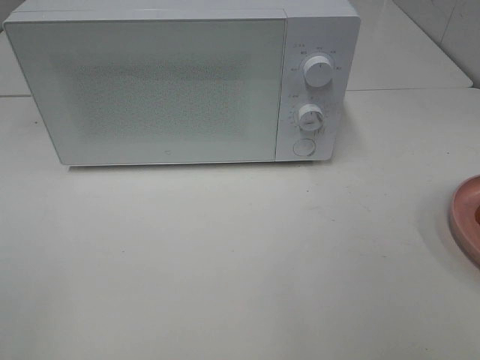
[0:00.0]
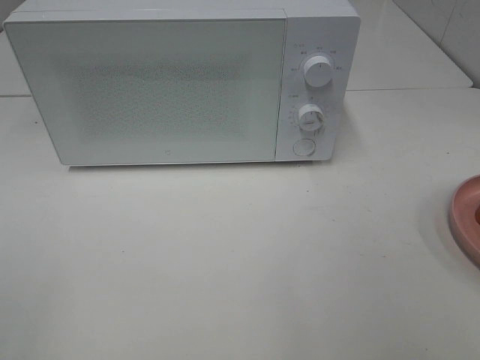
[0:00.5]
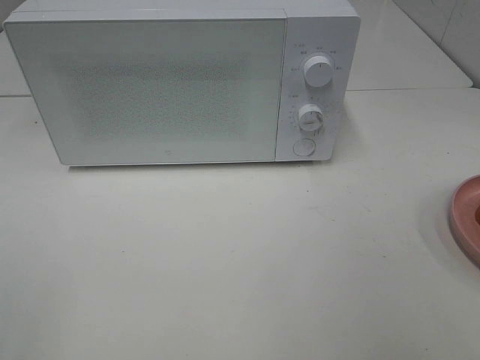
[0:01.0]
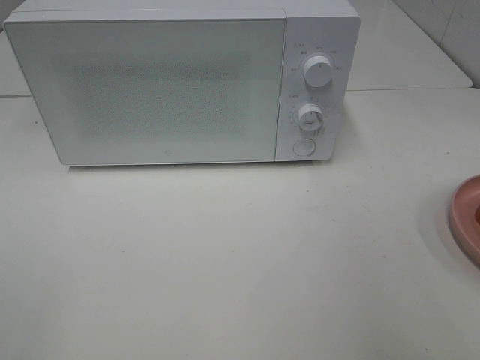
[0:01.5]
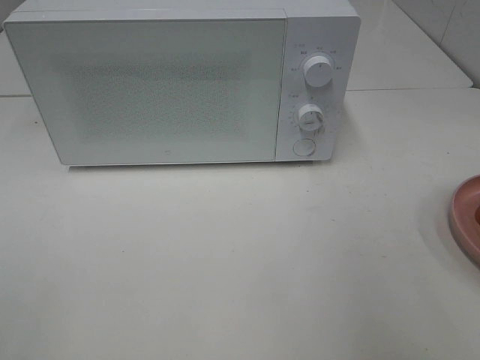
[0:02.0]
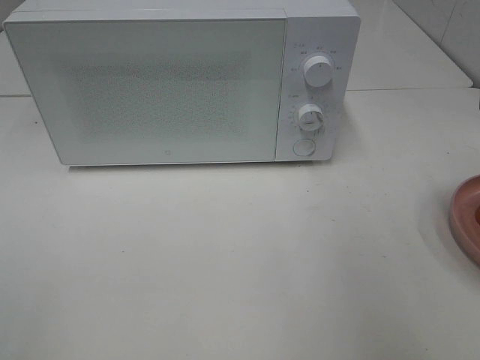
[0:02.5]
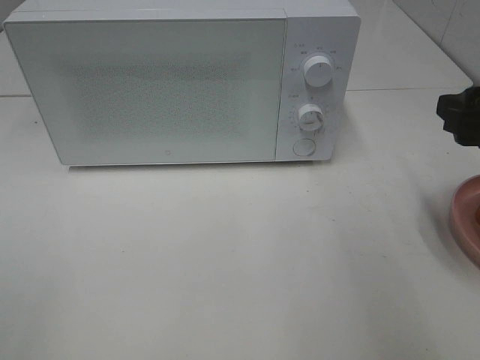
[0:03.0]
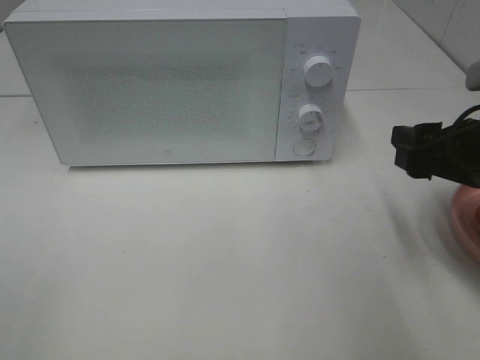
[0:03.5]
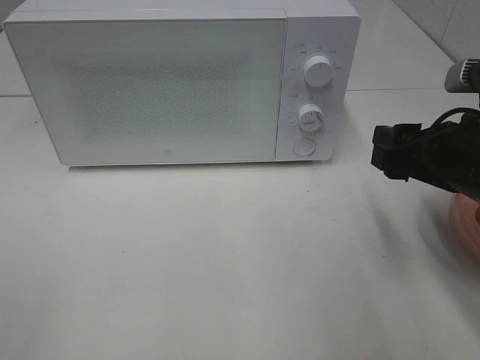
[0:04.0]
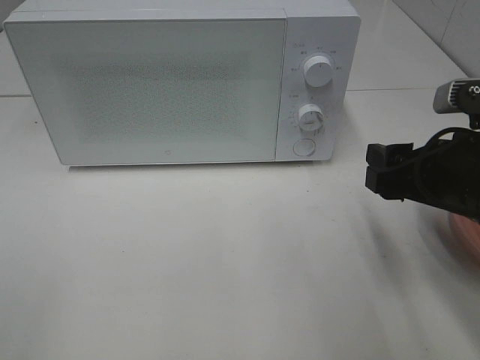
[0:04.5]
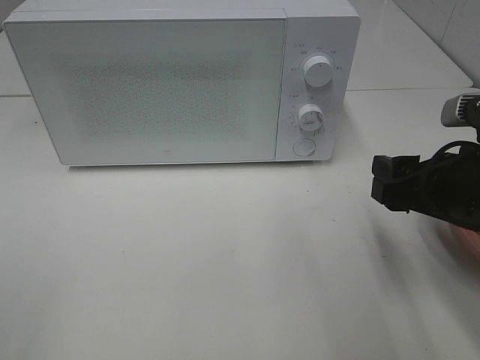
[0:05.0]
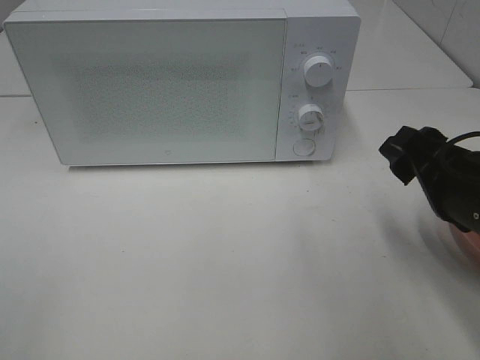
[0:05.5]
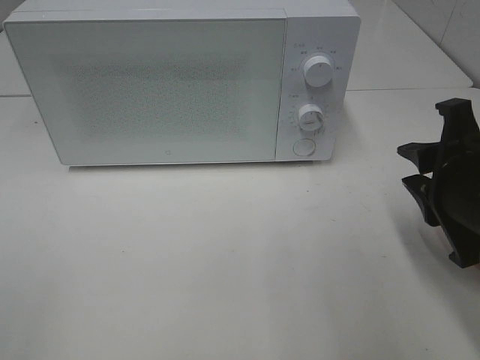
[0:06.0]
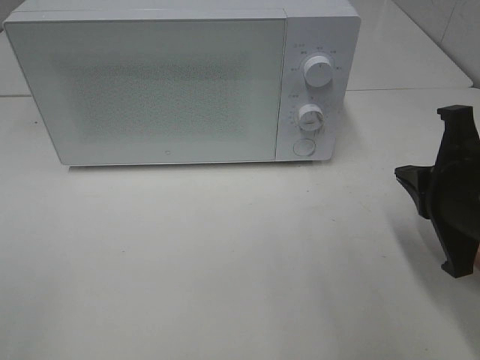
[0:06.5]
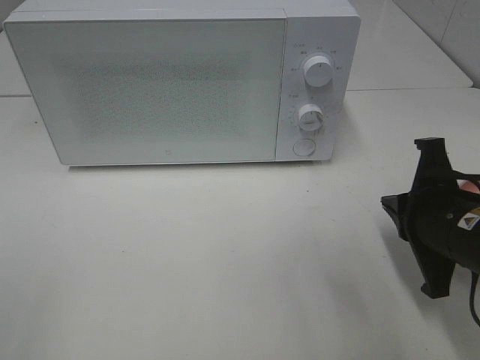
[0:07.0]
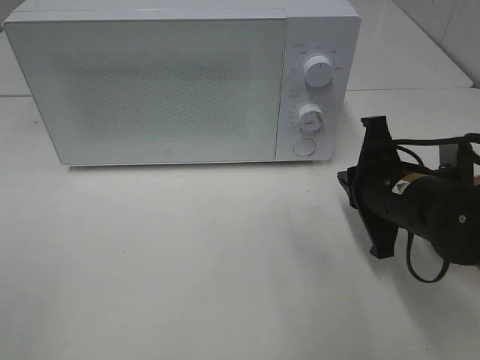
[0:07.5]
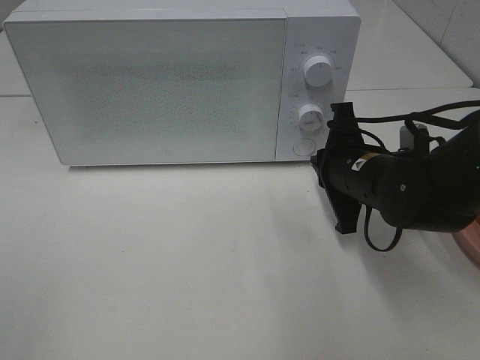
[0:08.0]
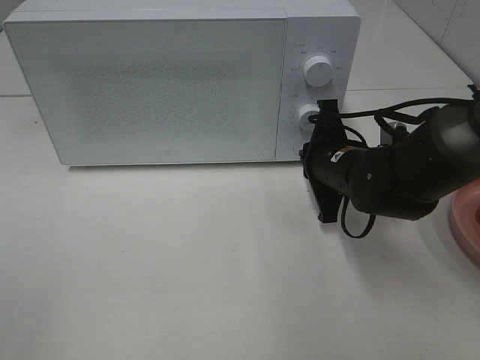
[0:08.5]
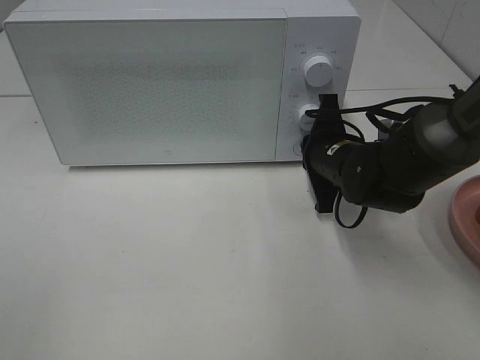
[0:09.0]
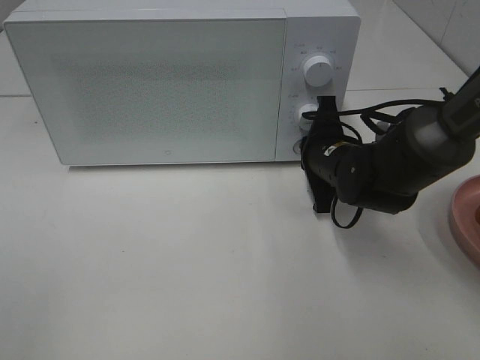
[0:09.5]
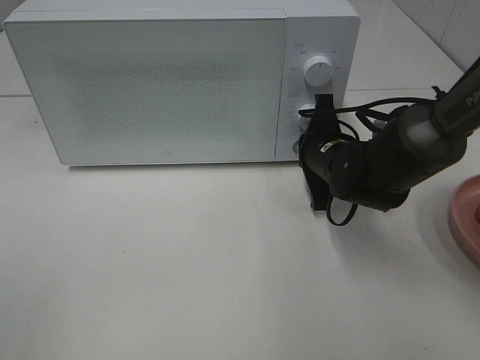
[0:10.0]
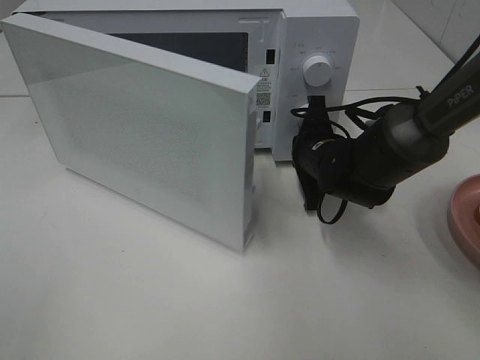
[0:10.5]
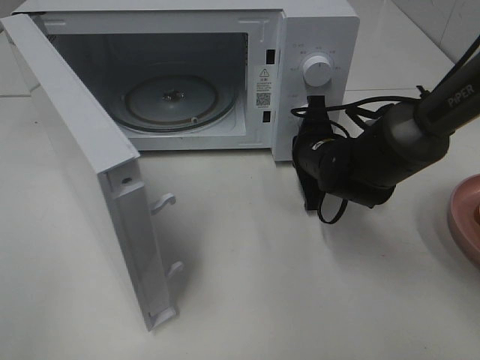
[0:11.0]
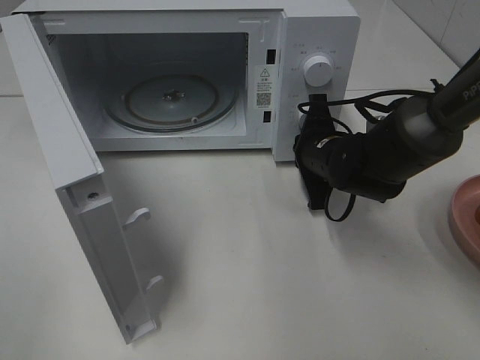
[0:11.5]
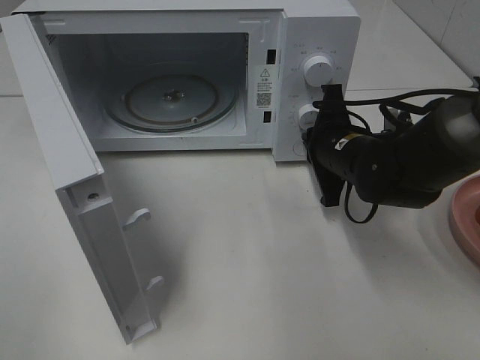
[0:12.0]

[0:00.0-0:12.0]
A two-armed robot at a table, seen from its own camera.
Task of the whole recording: Heat Sandwich.
0:02.0 to 0:04.0: The right gripper travels downward, forward and to the left by about 15 cm.
0:04.0 to 0:06.0: The right gripper closes its fingers.
0:06.0 to 0:08.0: The right gripper goes some 15 cm forward, to the left and downward, and closes its fingers.
0:08.0 to 0:10.0: The right gripper shifts about 5 cm forward.

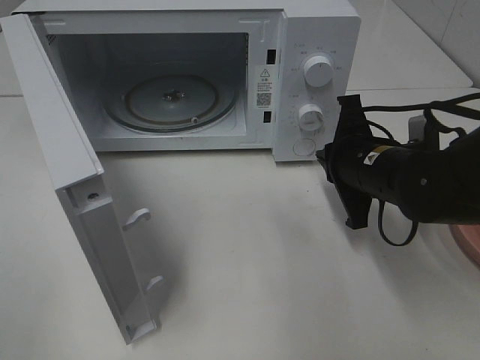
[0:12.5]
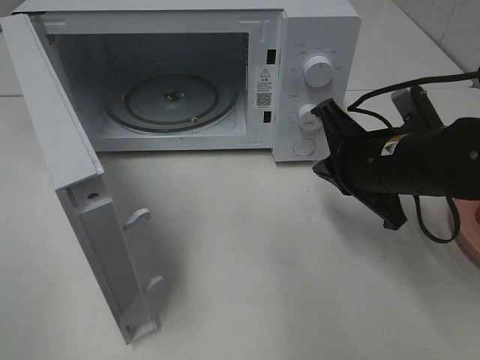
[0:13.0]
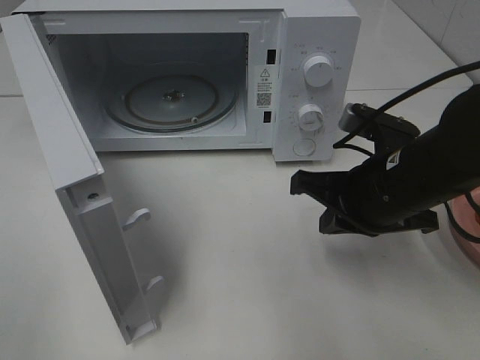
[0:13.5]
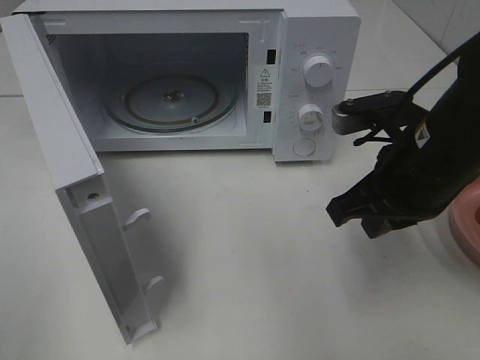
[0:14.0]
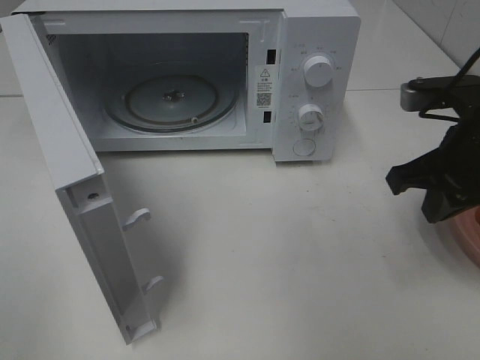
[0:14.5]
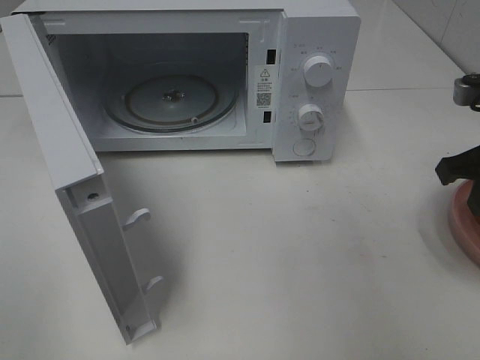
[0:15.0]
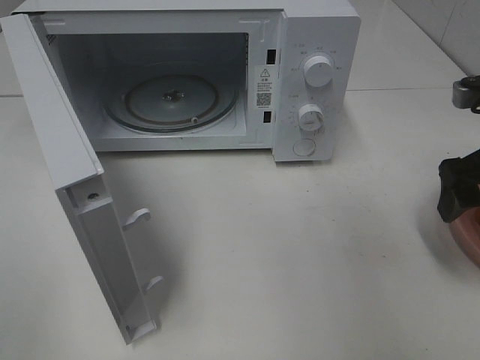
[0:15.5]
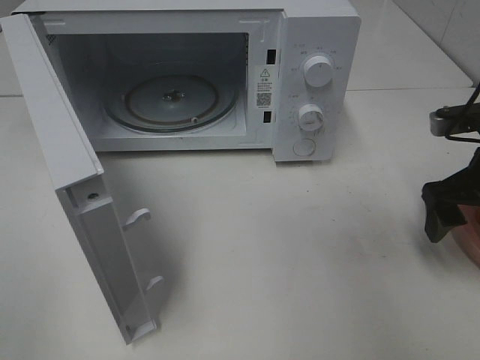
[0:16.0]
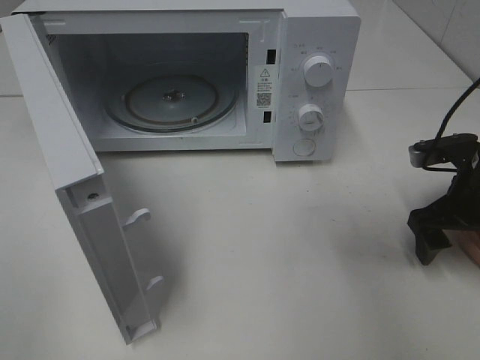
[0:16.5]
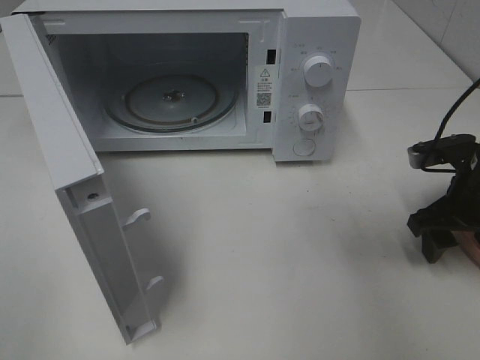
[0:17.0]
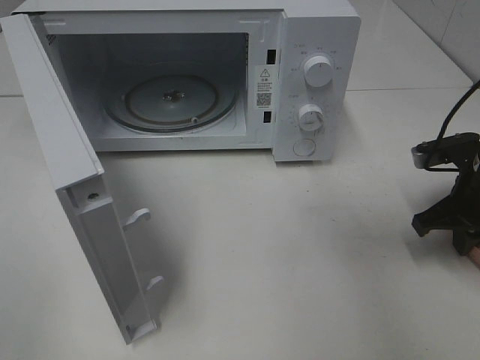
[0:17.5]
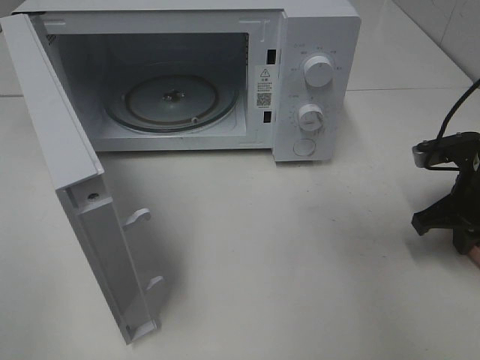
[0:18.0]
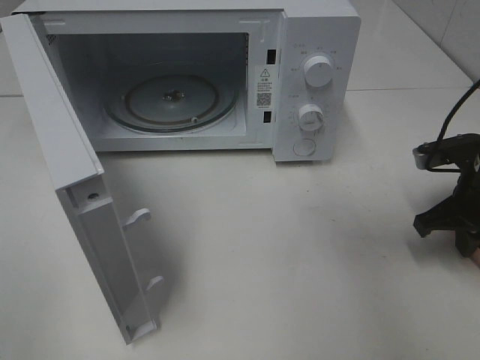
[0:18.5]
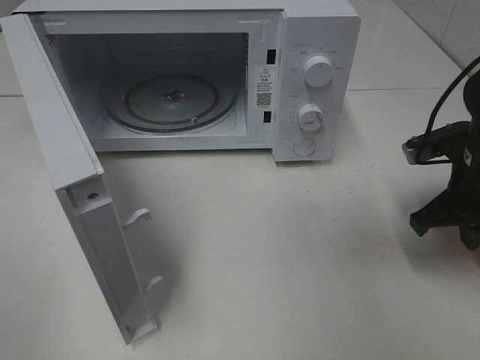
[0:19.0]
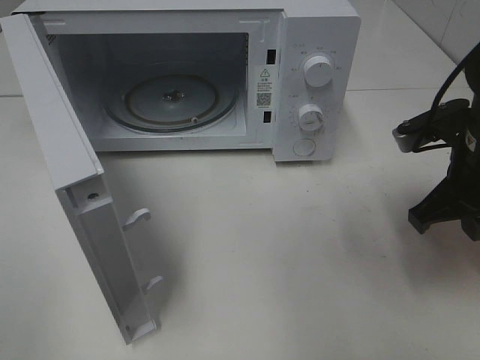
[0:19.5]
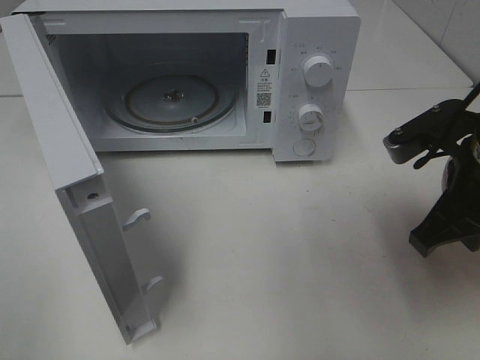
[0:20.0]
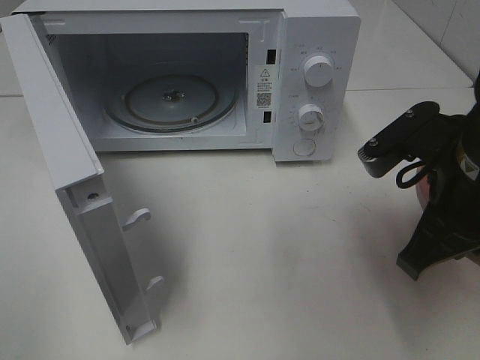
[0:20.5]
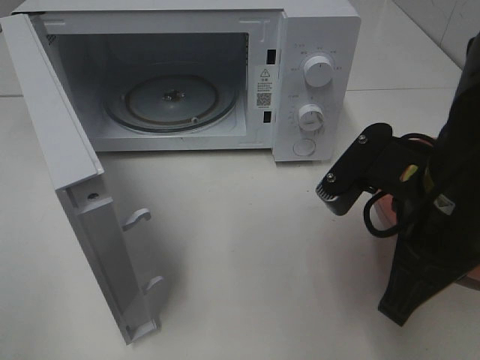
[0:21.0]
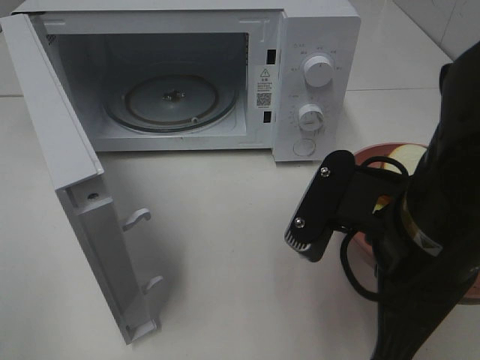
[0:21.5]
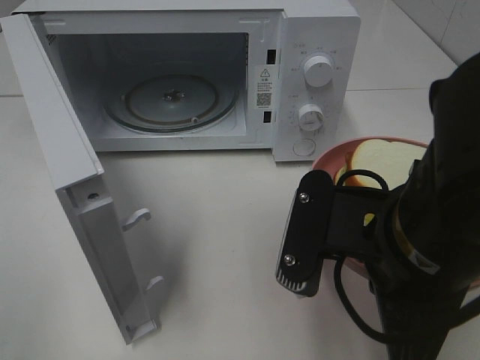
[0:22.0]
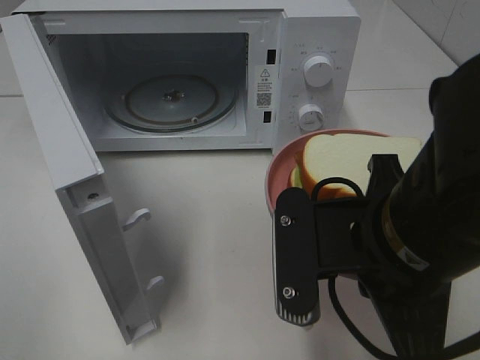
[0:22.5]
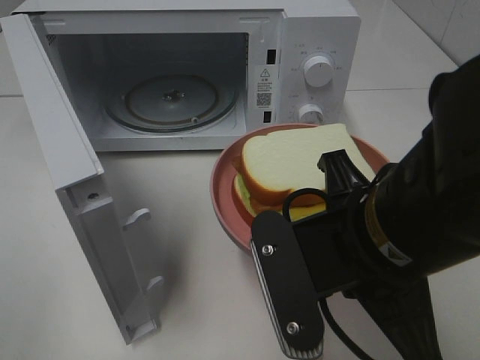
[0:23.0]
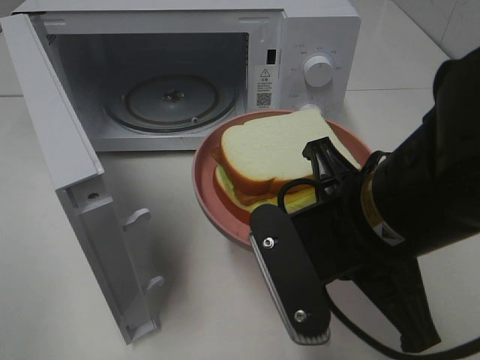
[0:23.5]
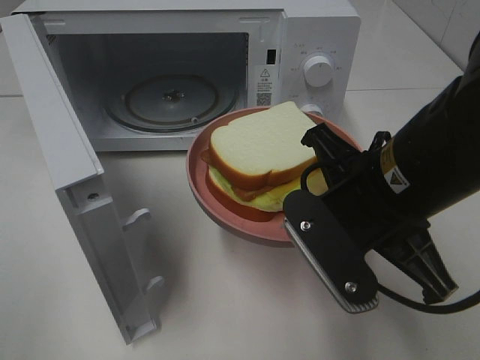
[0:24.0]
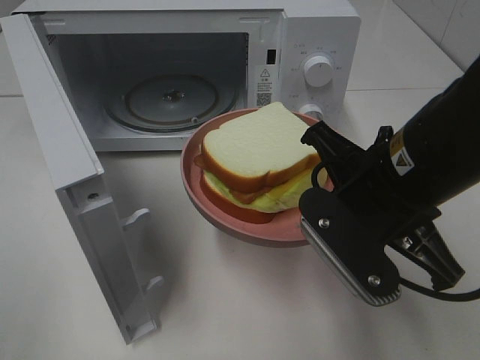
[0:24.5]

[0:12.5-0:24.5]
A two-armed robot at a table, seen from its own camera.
Task of the whole recording: Heat Sandwich.
Step, 0:12.5 to 0:17.5: Right hand: grab the plate with the sandwich.
0:12.5 to 0:14.5: The right gripper travels upward and to the right by approximately 10 cm.
0:14.5 to 0:16.5: The right gripper goes some 10 cm downward and to the right, and opens its fingers.
0:16.5 to 0:18.5: The right gripper closes up.
0:18.5 to 0:20.5: The right gripper goes approximately 15 cm to the left, upward and backward.
0:20.5 to 0:22.5: The right gripper is displaced to the left and backward by some 10 cm.
0:22.5 to 0:24.5: The right gripper moves forward, some 5 cm.

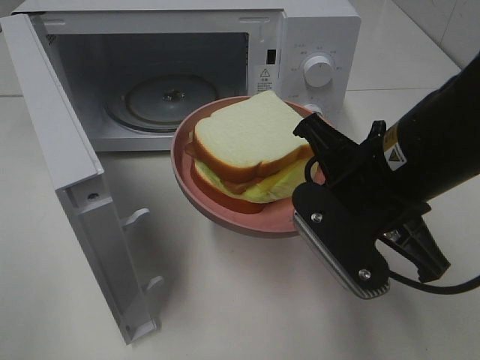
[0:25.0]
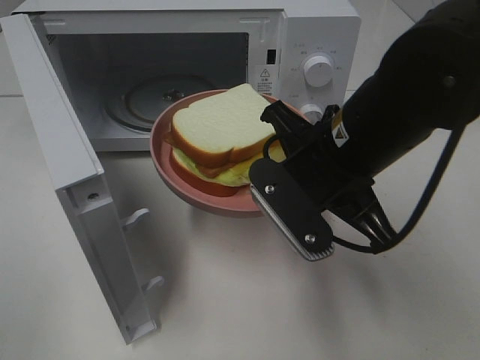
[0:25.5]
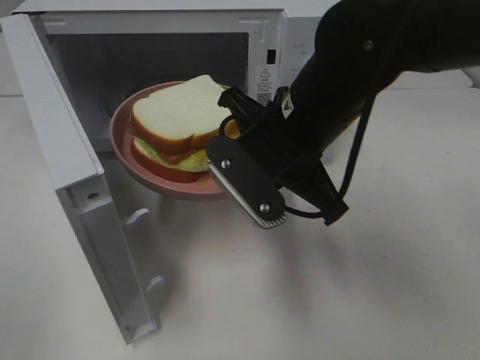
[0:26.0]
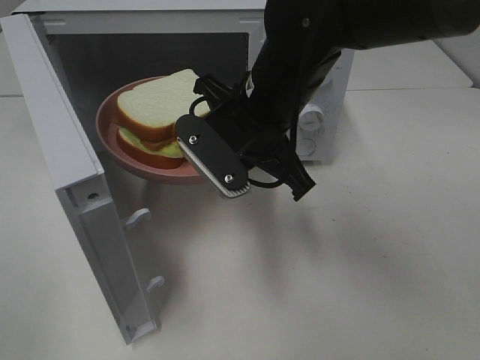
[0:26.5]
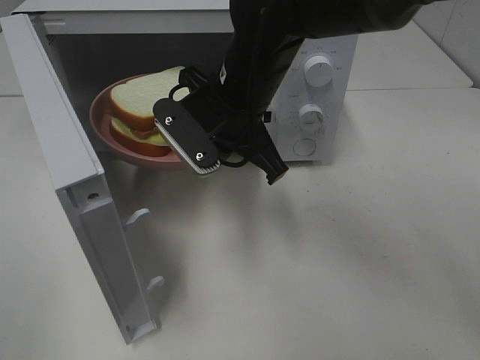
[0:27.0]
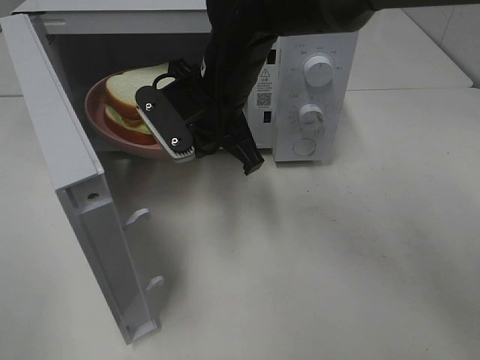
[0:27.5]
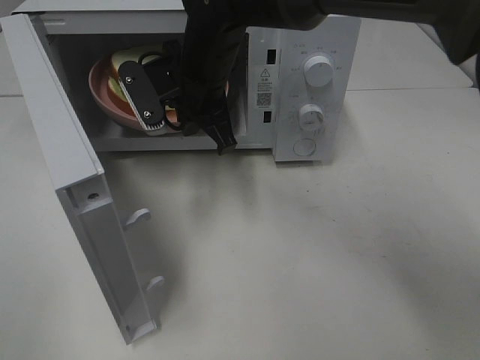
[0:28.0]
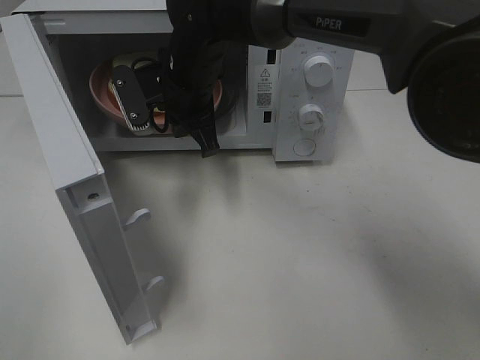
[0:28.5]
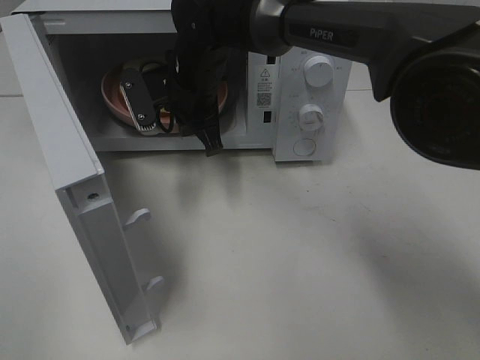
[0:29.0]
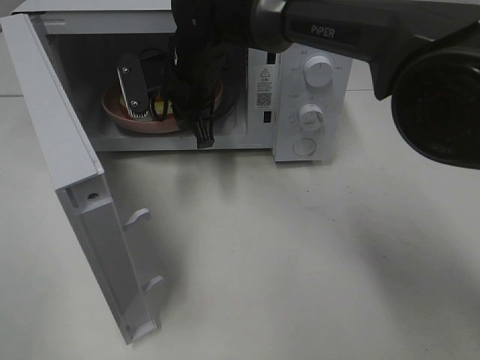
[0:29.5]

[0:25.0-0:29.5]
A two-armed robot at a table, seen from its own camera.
Task of the whole recording: Heat Sandwich.
0:25.0 to 0:27.0: The right gripper moves forward and to the left, about 15 cm.
0:27.0 to 0:29.5: The right gripper heads forward and to the left, covering approximately 10 cm.
